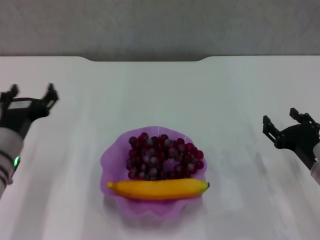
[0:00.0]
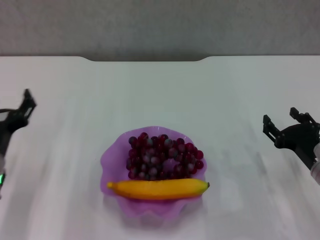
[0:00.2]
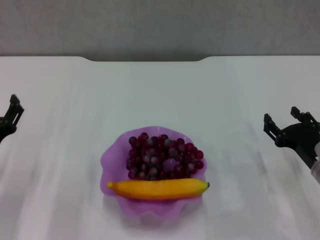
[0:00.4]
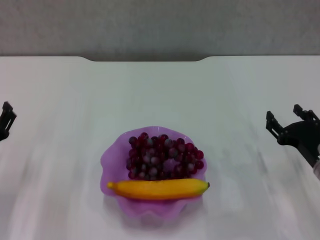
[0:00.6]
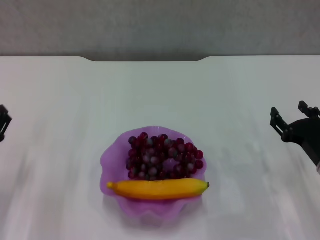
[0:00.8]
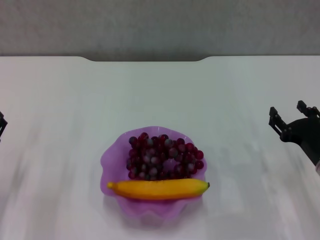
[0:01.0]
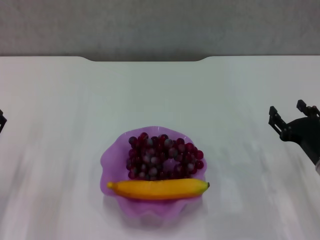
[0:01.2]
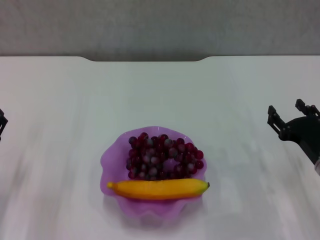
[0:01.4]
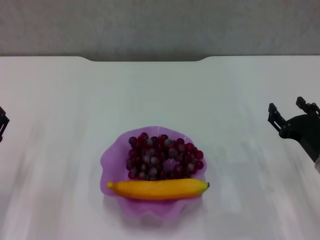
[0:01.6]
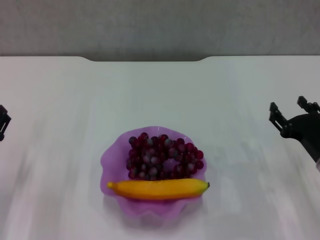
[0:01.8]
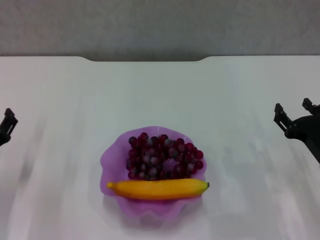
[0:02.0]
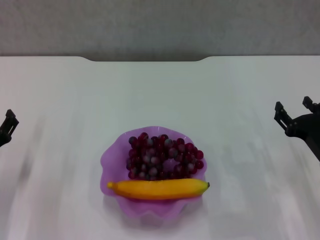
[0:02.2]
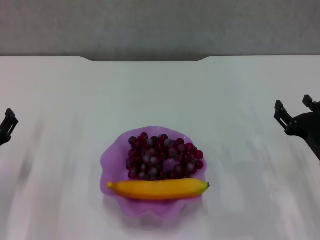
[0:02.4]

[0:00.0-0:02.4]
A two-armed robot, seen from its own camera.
0:00.0 to 0:01.2: The left gripper heads to the left and downward, covering about 10 cm.
0:01.2 to 0:02.4: The grippers make only small movements.
